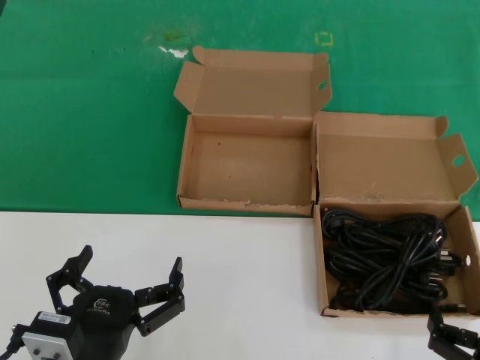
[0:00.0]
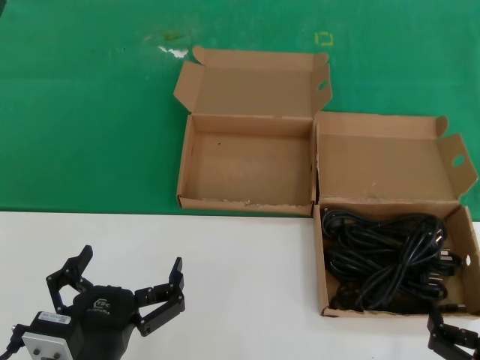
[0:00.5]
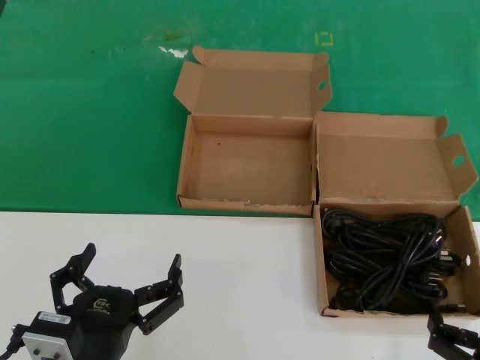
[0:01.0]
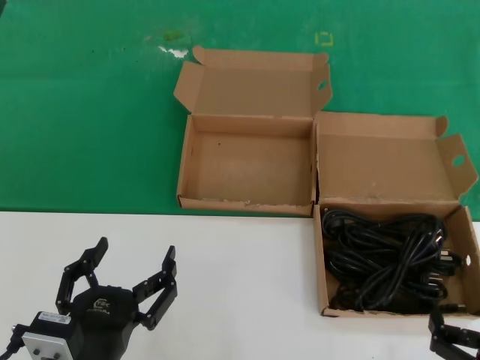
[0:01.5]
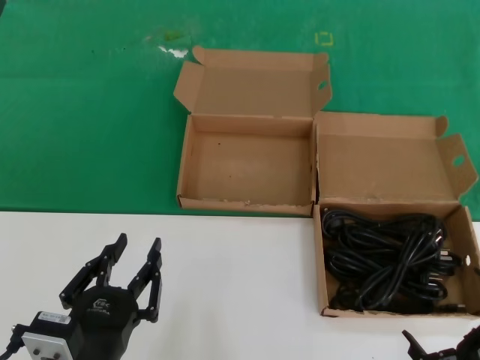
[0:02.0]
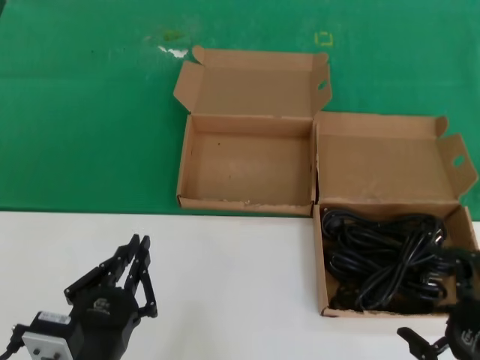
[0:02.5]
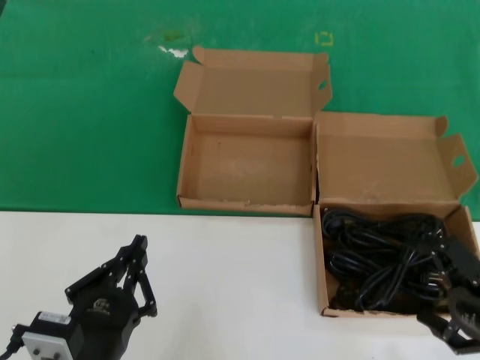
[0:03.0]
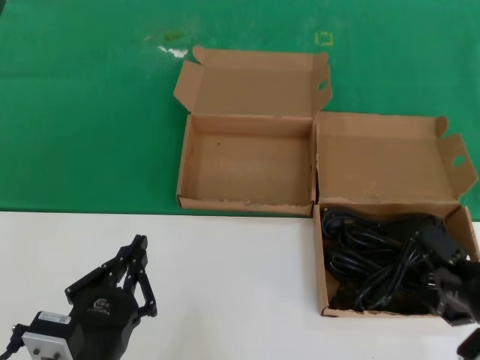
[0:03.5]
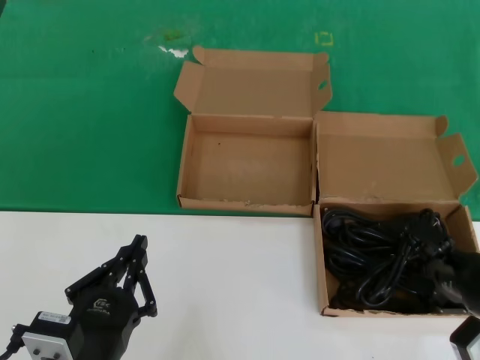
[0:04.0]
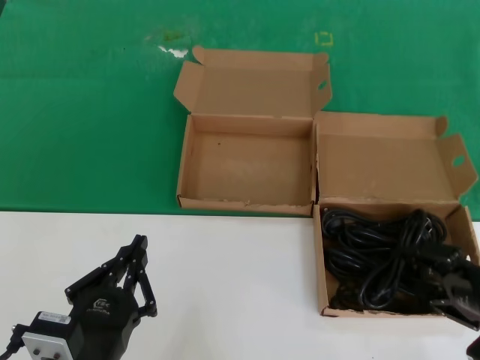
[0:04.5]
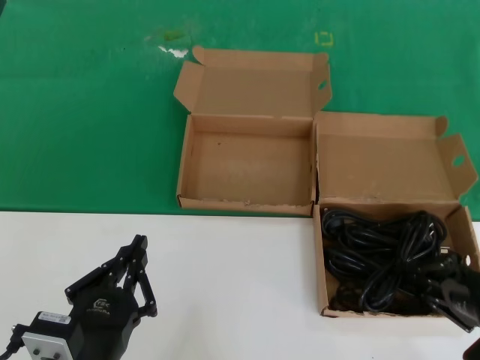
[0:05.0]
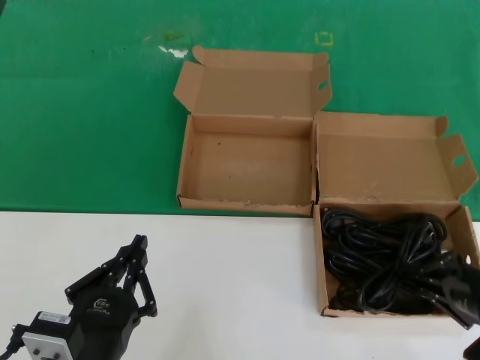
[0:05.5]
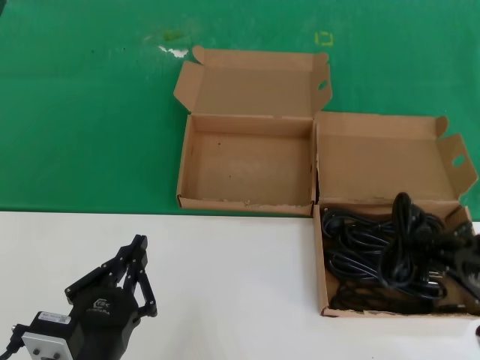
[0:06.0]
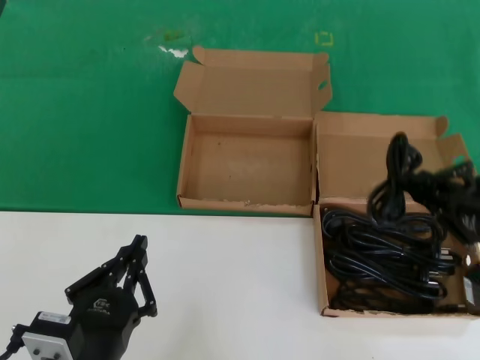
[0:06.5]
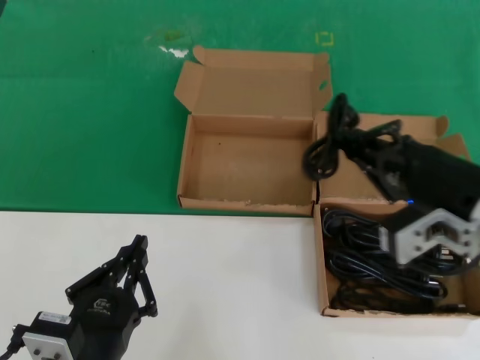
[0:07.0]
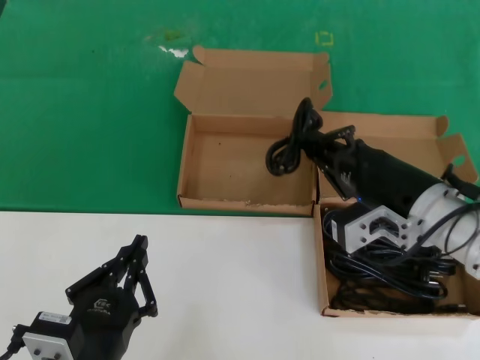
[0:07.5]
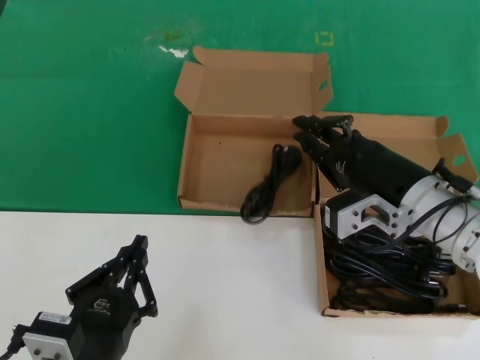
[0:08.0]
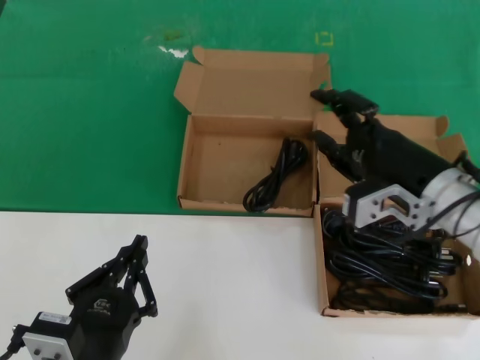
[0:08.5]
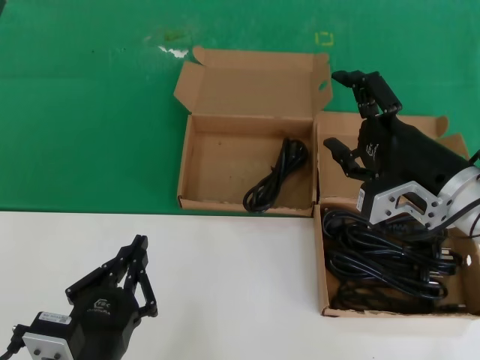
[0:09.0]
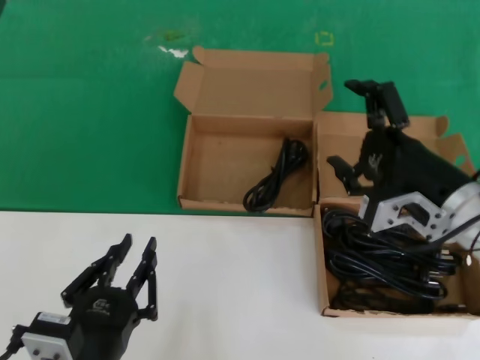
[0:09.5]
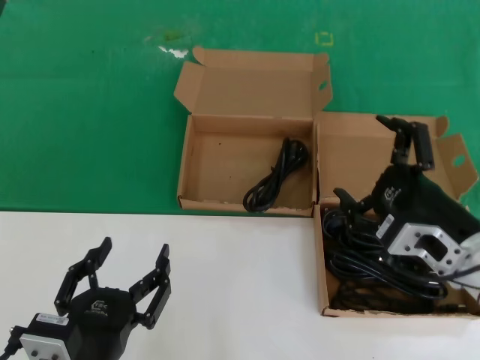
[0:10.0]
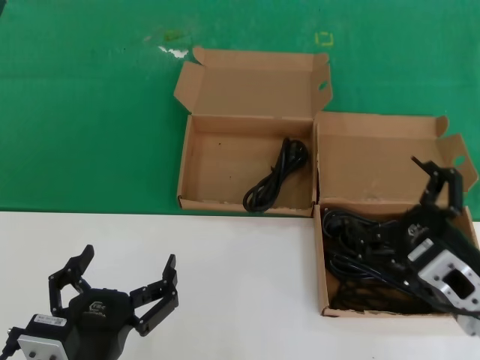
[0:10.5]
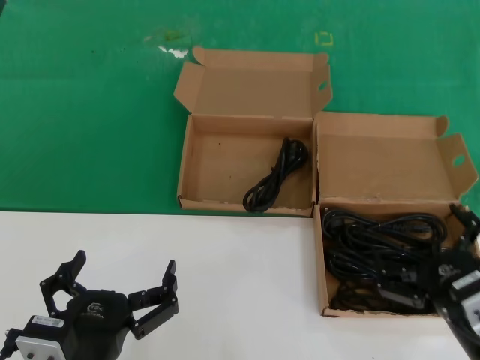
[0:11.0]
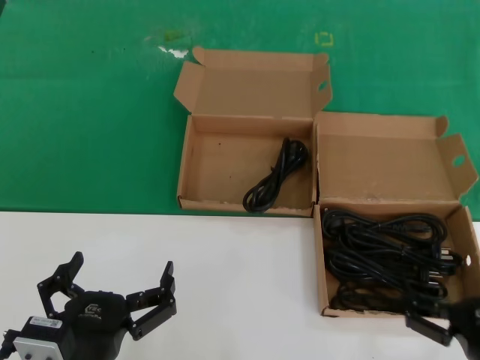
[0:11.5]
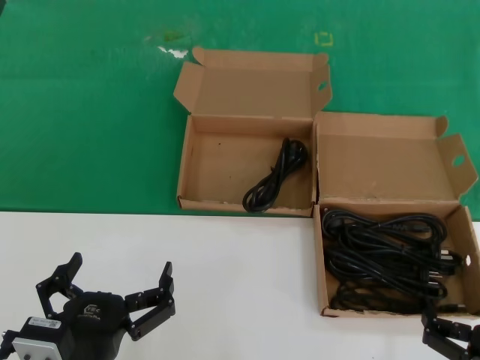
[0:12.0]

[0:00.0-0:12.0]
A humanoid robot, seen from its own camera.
Task of the whole recording: take the parts from the box containing them and put them into an empty box.
Step, 0:00.0 to 0:04.5: Grasp the data cable.
Step, 0:05.0 to 0:08.0: Place the data cable in the another box.
0:02.0 to 0:04.0: The right hand moves forward and upward, some 15 cm.
0:04.0 to 0:06.0: The right hand changes place by about 5 cm.
0:06.0 to 0:08.0: The right hand travels forward and to the left by some 20 cm.
0:08.0 to 0:10.0: The right hand heads downward, covering some 5 cm.
0:10.0 to 0:12.0: The right hand heads backward and downward, covering roughly 20 cm.

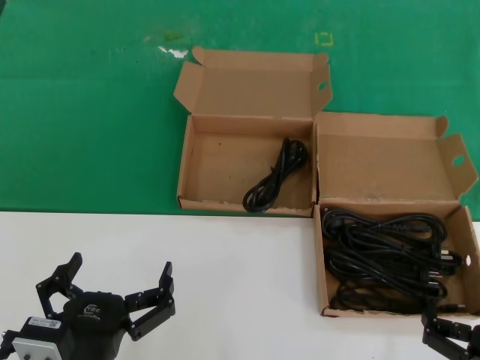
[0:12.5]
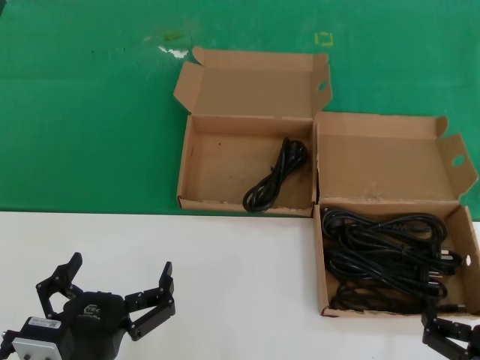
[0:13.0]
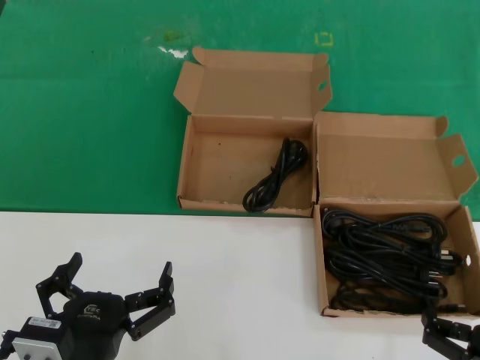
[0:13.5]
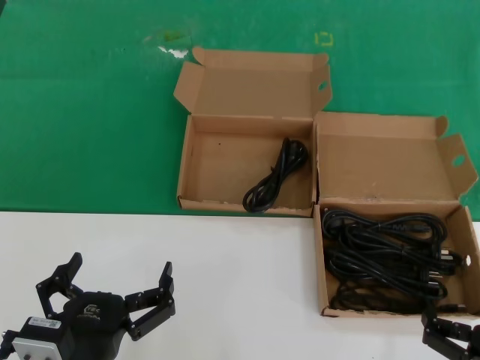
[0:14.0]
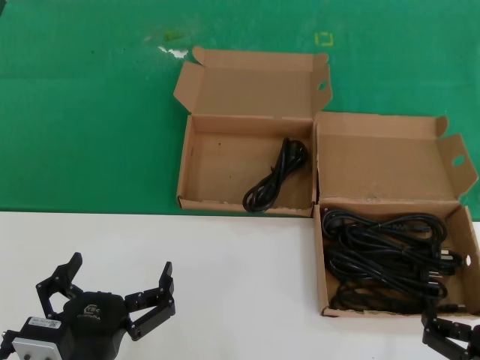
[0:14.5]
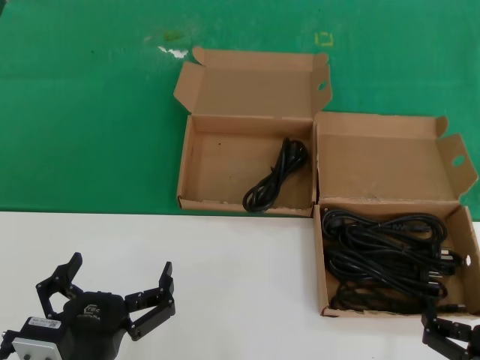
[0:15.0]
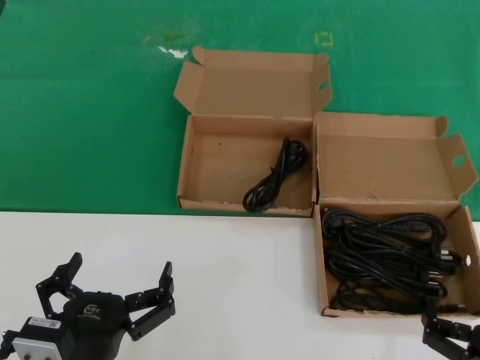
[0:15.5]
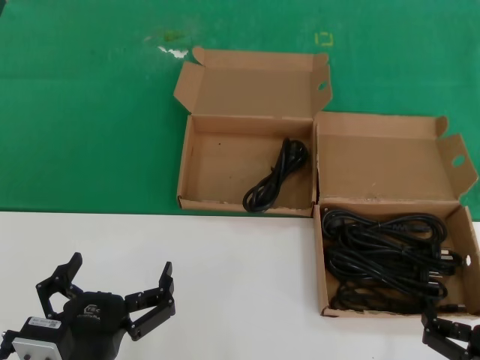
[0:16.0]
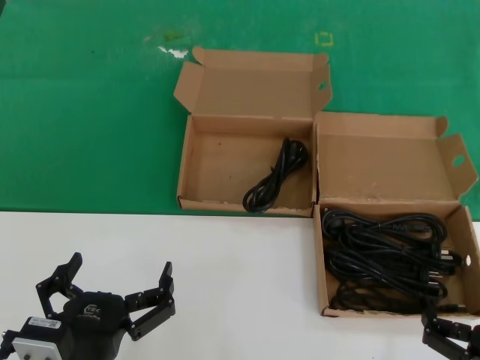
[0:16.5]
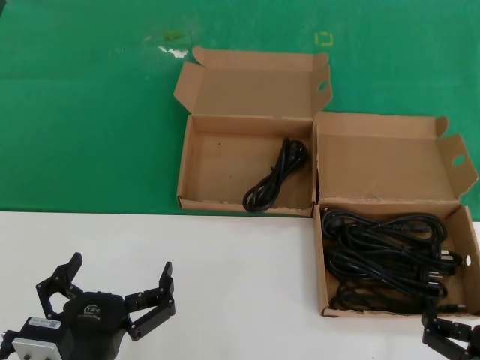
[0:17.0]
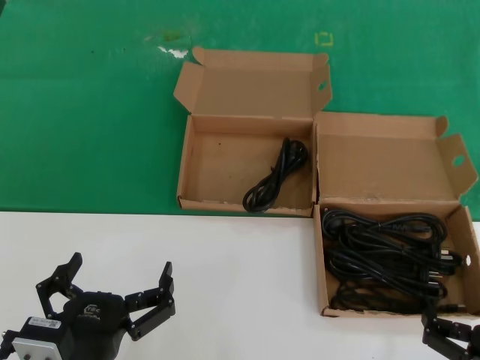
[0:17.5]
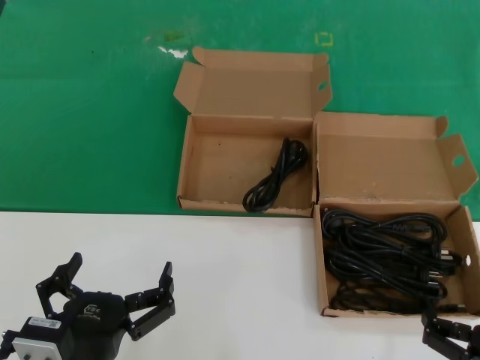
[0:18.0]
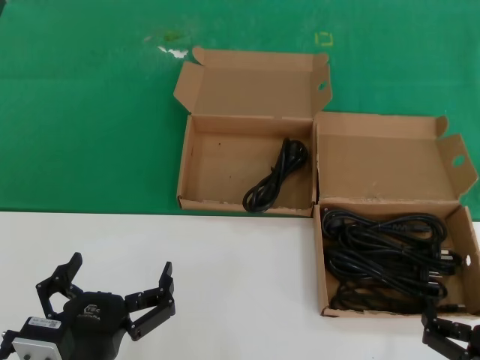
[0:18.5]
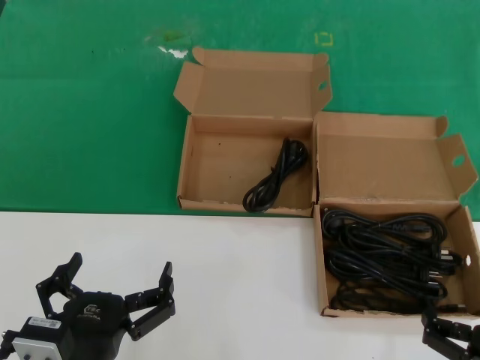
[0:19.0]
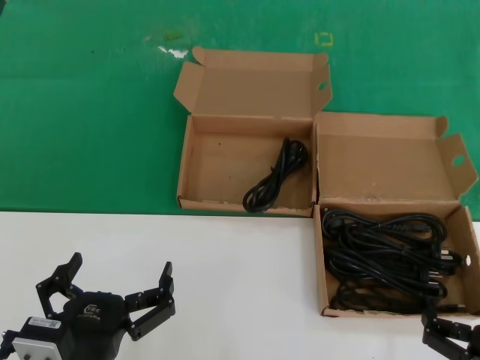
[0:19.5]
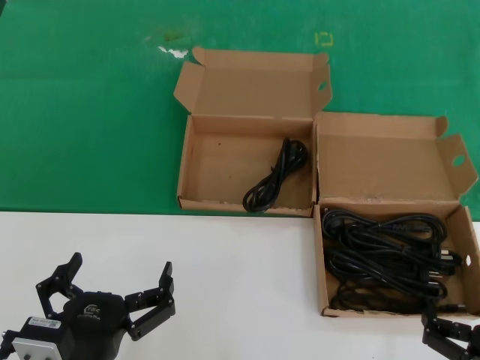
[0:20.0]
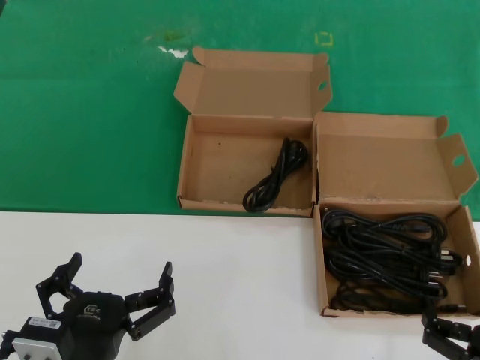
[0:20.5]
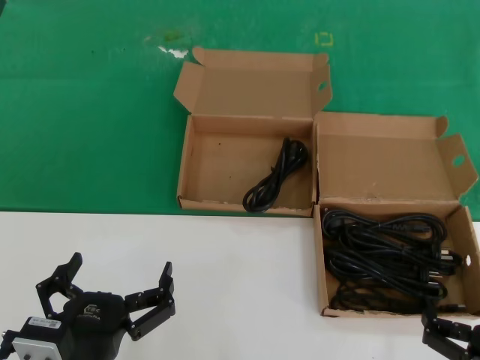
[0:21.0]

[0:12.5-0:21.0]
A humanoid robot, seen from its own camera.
Task of the whole recording: take the parts from the box containing them and put them into an empty box.
0:12.5 to 0:21.0: Both hands stay put.
